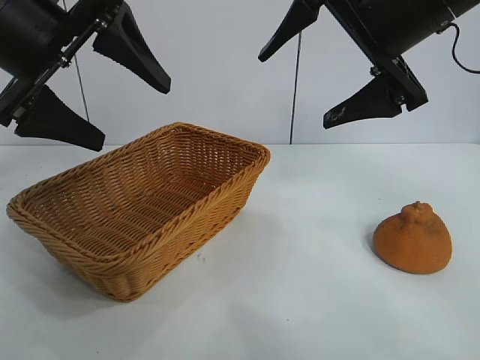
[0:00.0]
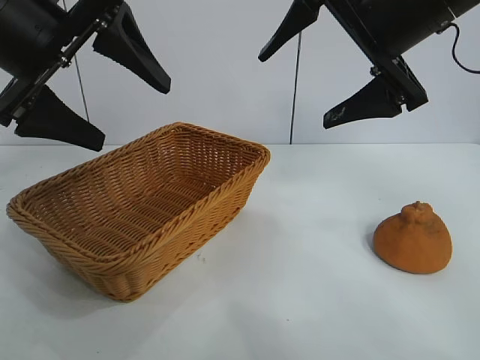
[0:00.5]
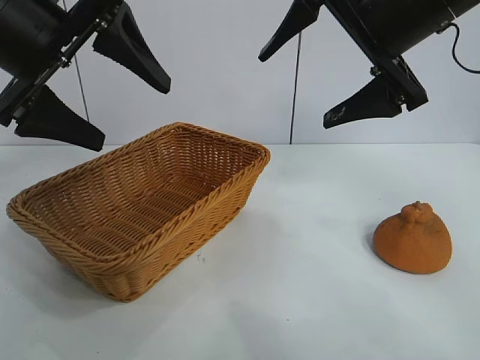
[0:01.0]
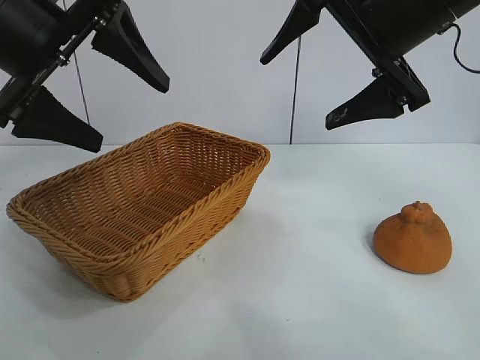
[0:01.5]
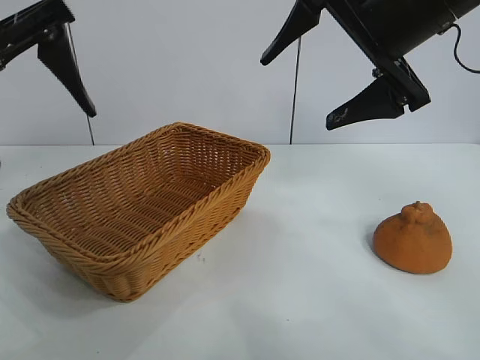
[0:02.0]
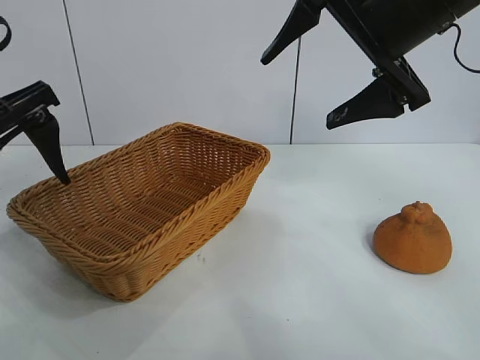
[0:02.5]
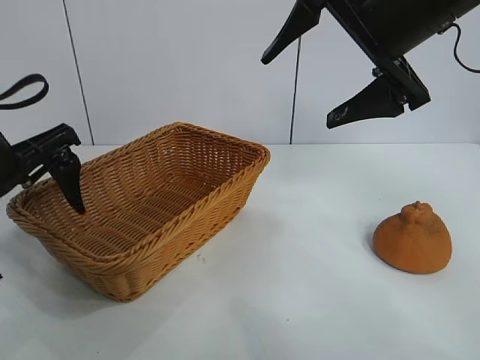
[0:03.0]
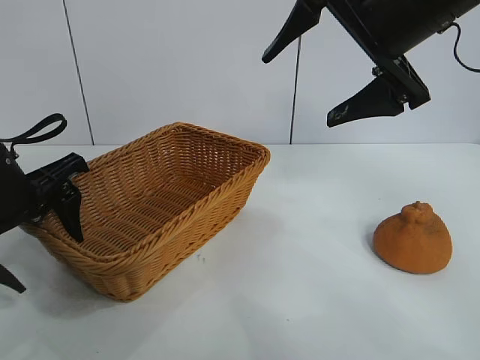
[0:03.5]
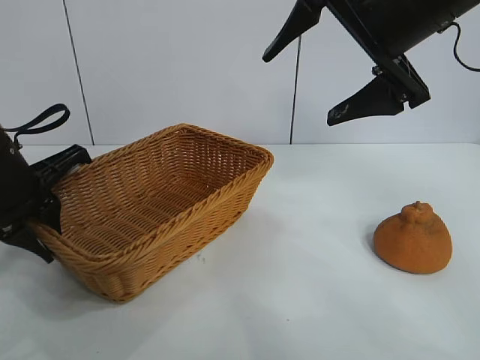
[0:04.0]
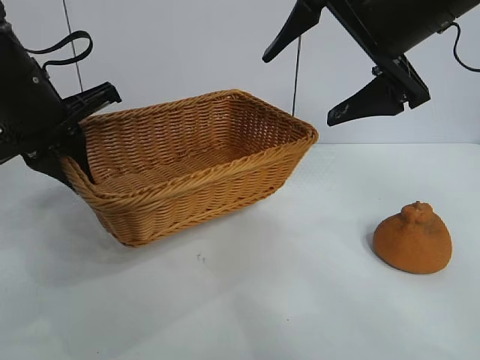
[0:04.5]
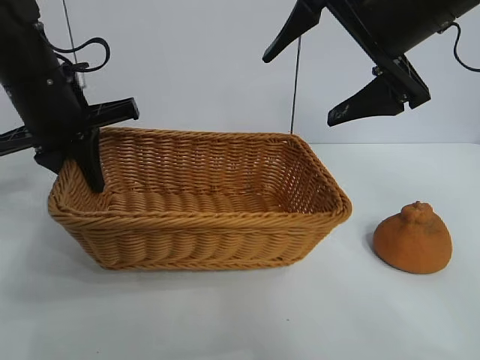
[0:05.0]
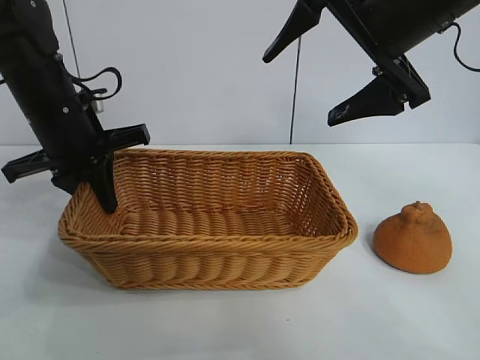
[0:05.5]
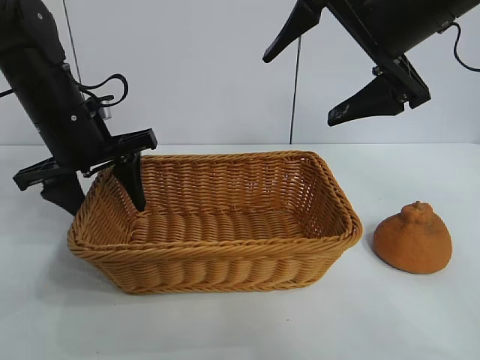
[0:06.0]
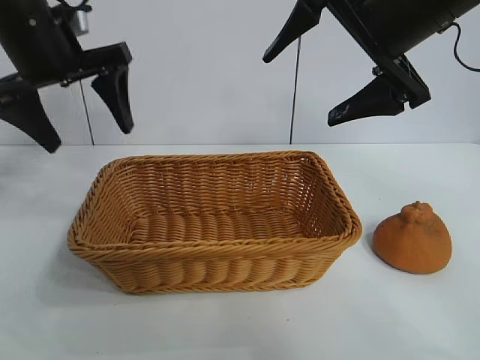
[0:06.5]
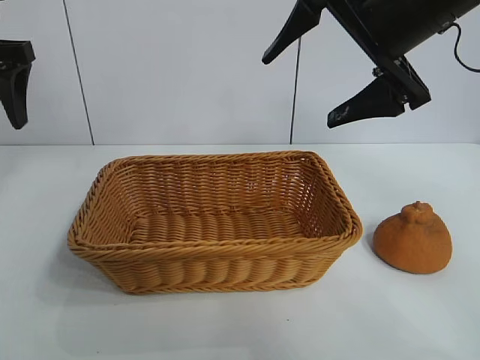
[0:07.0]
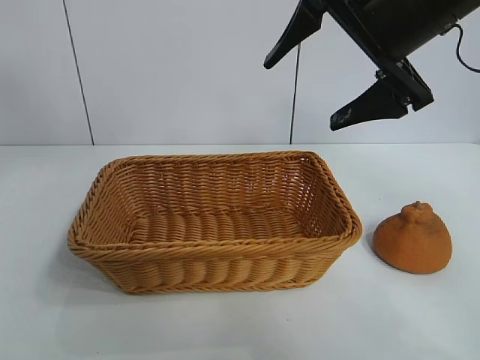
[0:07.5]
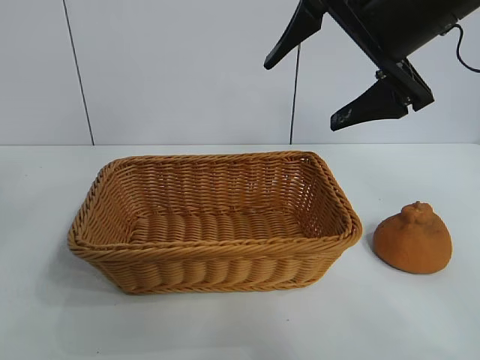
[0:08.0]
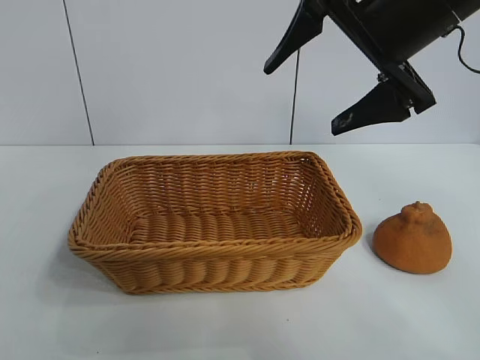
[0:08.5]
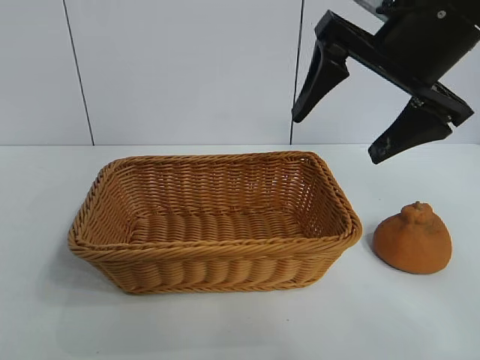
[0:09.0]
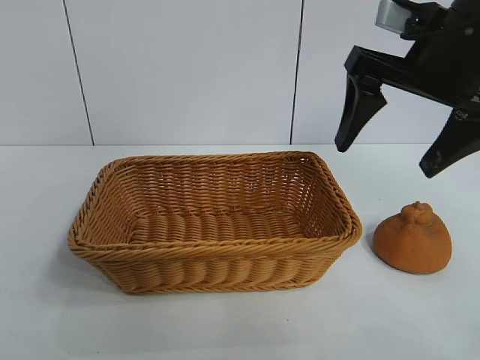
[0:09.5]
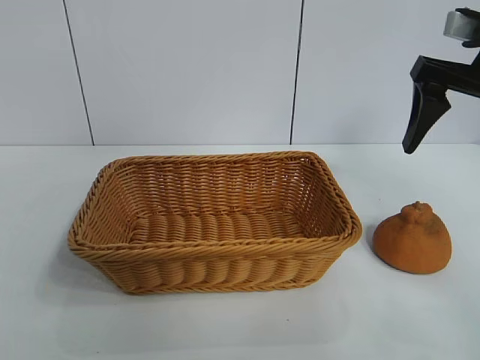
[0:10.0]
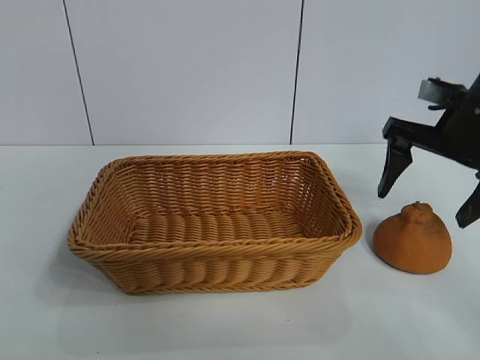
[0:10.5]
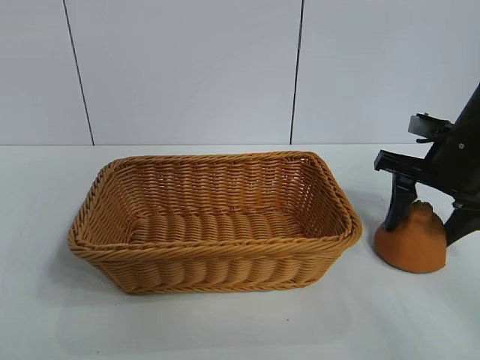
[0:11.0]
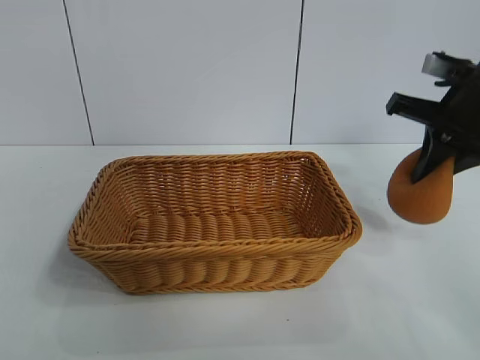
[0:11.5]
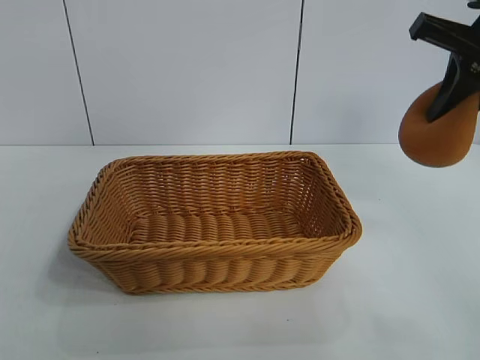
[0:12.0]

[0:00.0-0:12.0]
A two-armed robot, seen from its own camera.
Task of the whole recording: pick up the orange and put it into the basket.
Step, 0:01.0 to 0:04.0: Grasp the basket with left gripper.
Step, 0:04.5 to 0:06.0: Place the basket in the center of view with left gripper.
Step, 0:06.5 to 0:11.0: Grasp the orange with right gripper.

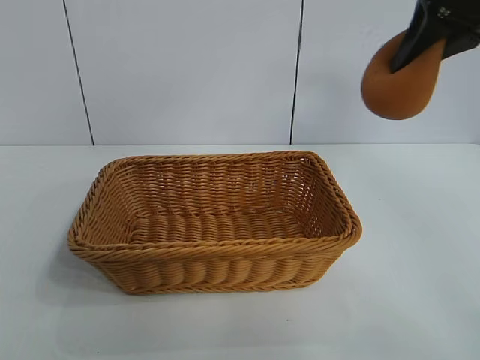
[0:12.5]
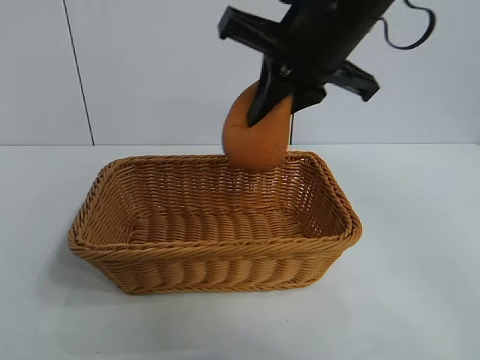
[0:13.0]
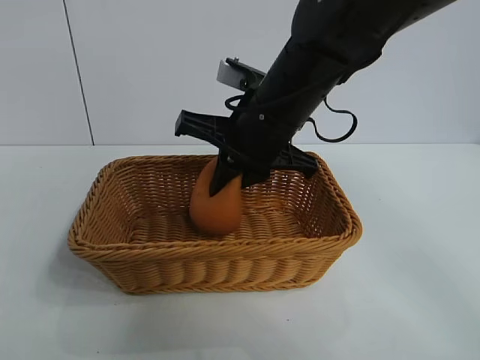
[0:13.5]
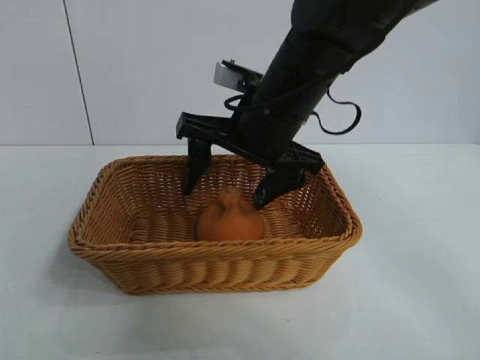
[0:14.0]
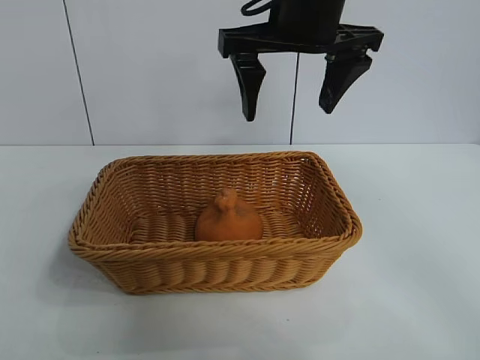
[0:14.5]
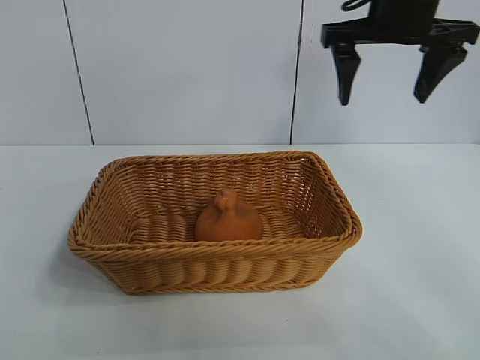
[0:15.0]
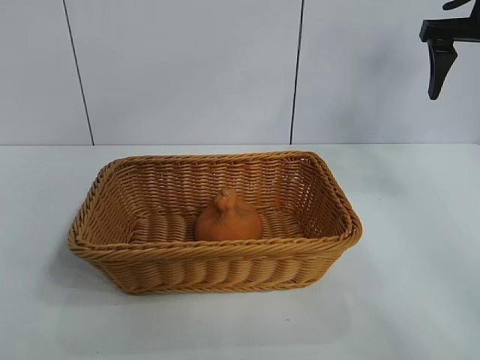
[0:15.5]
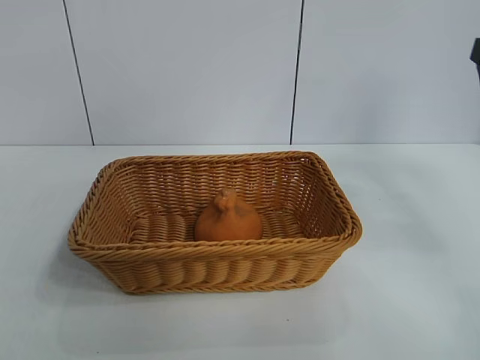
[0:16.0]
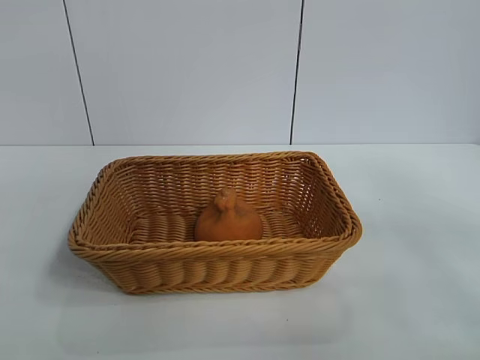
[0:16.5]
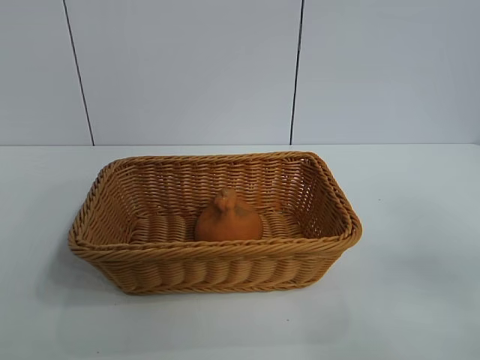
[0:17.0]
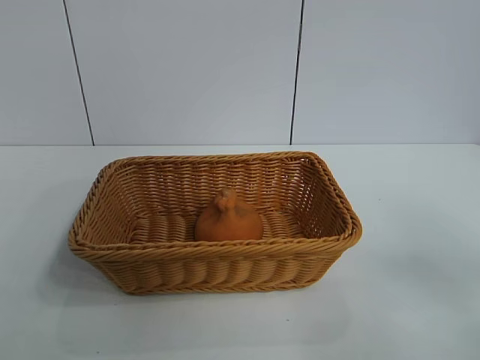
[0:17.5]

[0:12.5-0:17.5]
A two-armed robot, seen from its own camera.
Task of the whole recording: pick up the orange and put it into the basket.
Step, 0:12.5 to 0:14.0: Place the orange in the basket with right gripper.

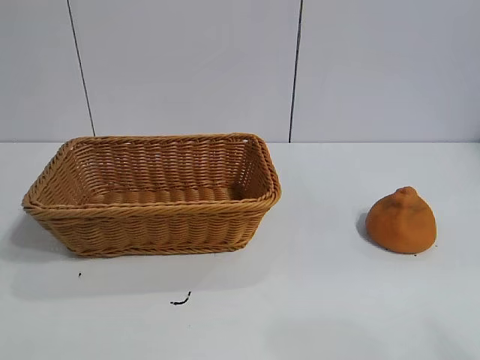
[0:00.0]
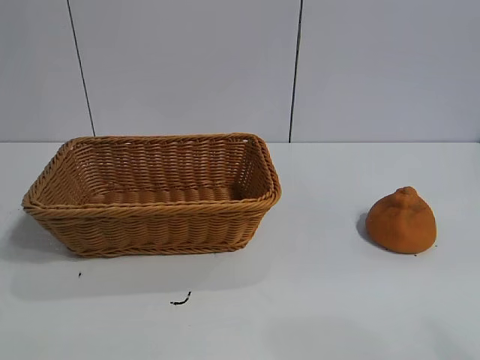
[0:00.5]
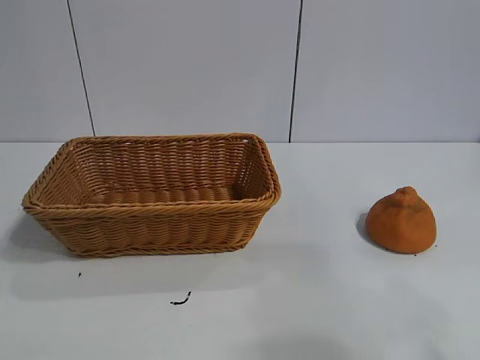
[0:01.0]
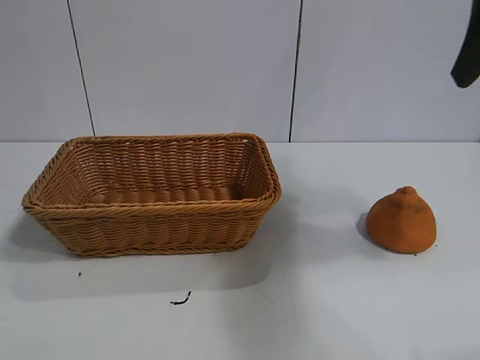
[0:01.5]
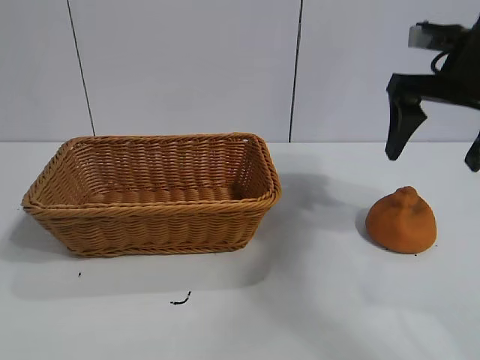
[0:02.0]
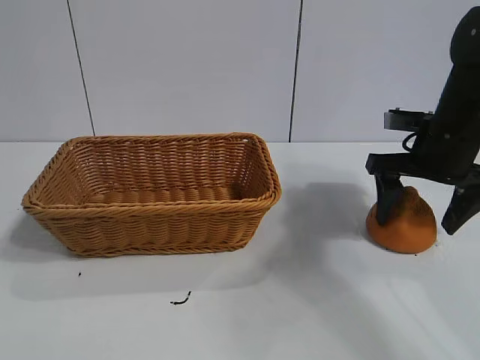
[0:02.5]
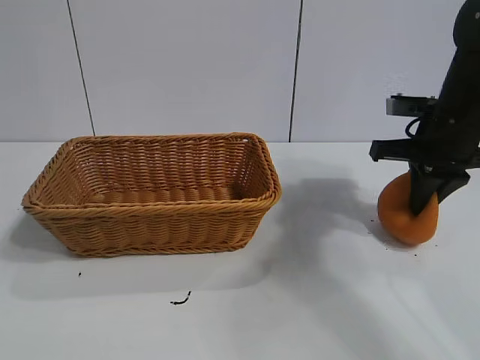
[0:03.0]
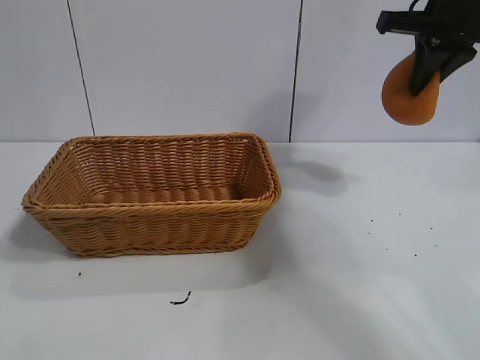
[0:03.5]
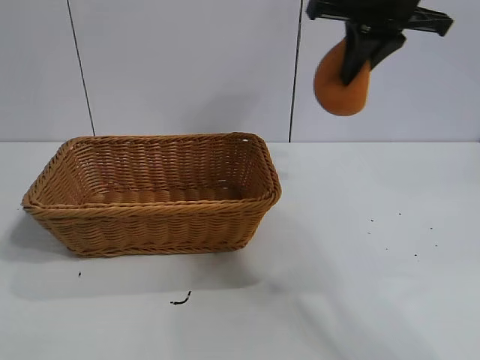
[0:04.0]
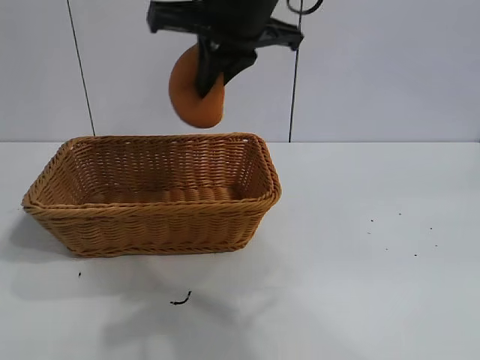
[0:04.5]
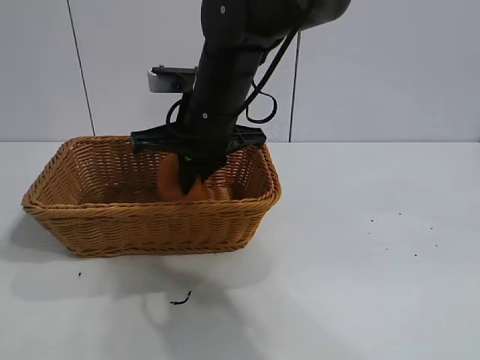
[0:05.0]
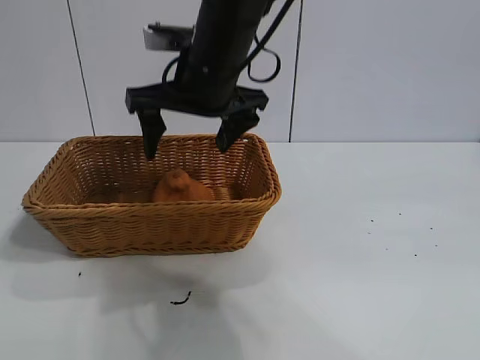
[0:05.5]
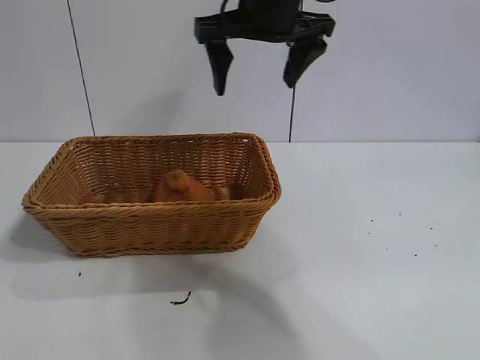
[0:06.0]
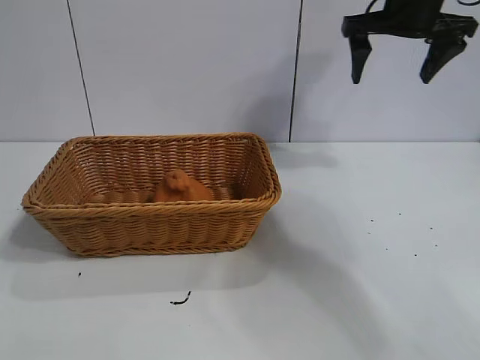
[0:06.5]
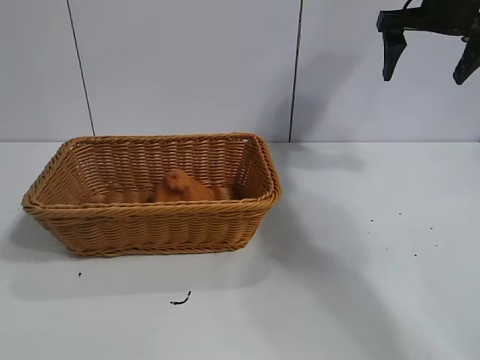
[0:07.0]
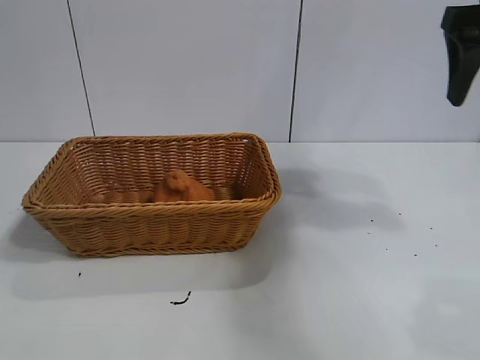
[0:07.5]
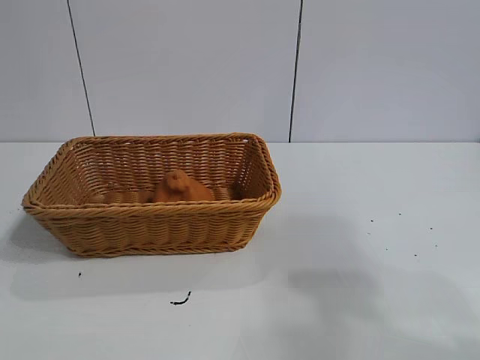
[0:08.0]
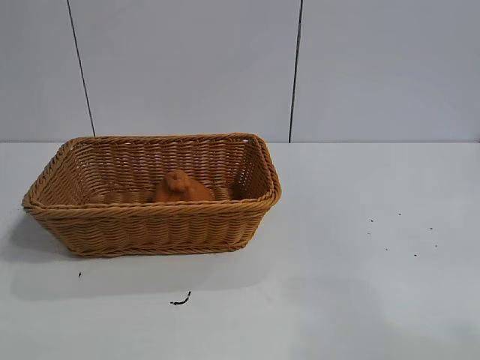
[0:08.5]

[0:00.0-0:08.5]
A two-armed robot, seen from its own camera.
Task of the whole recording: pick up the orange and put it into the basket.
Step, 0:01.0 to 0:02.5: Grasp the orange with right gripper.
Step, 0:03.0 to 0:05.0: Place the orange in the basket with right gripper.
